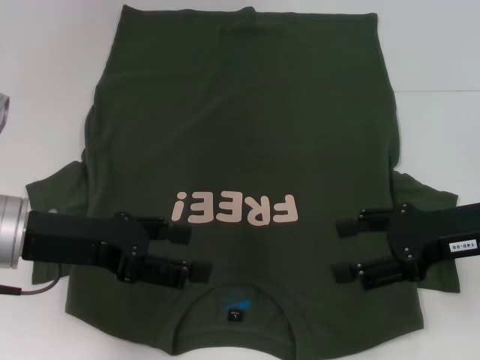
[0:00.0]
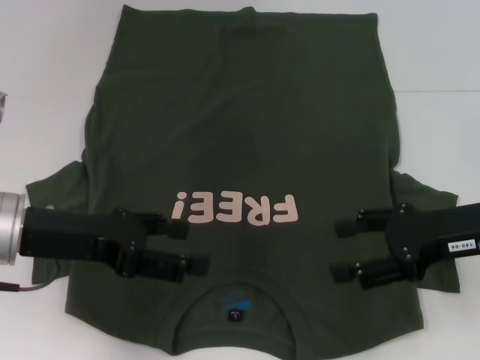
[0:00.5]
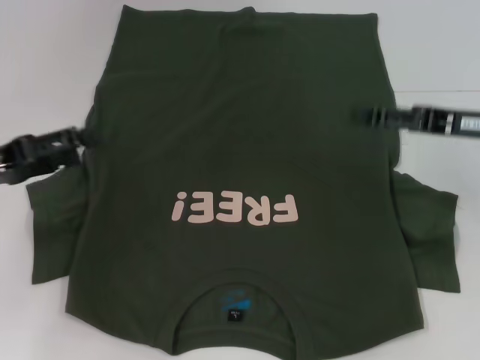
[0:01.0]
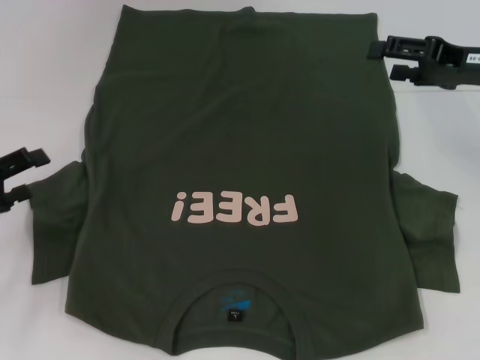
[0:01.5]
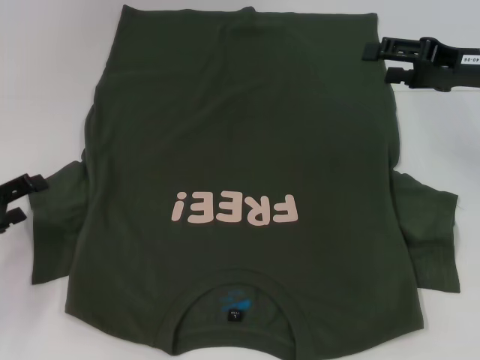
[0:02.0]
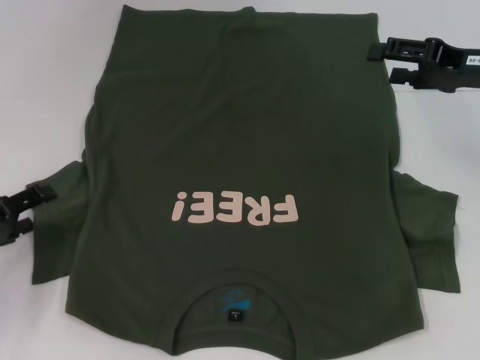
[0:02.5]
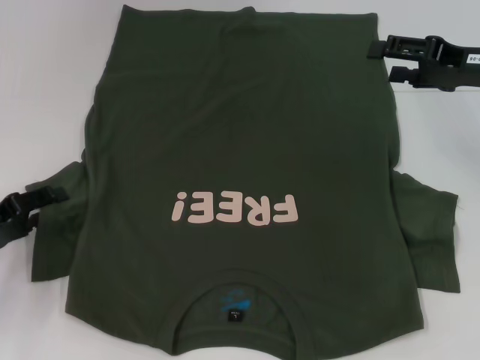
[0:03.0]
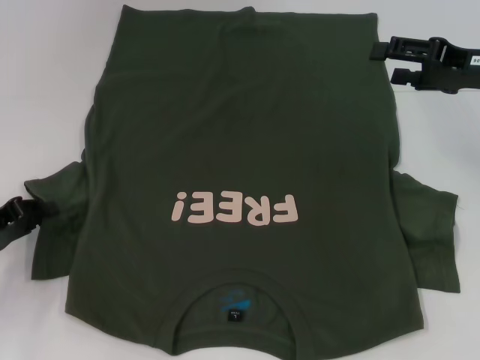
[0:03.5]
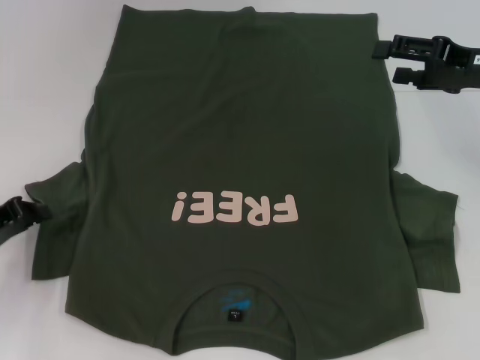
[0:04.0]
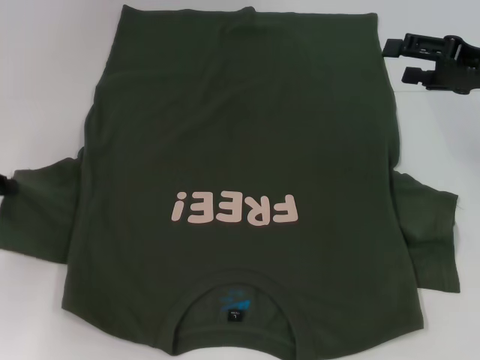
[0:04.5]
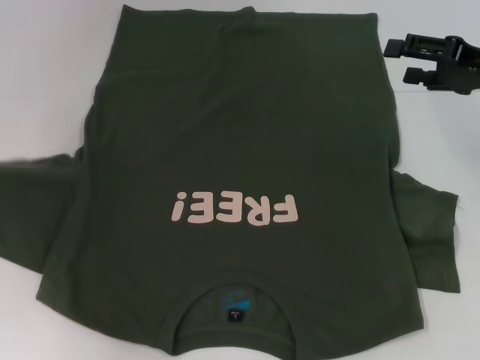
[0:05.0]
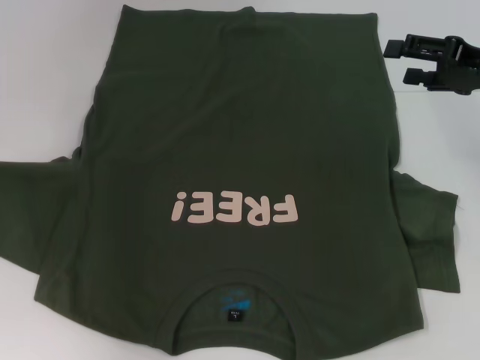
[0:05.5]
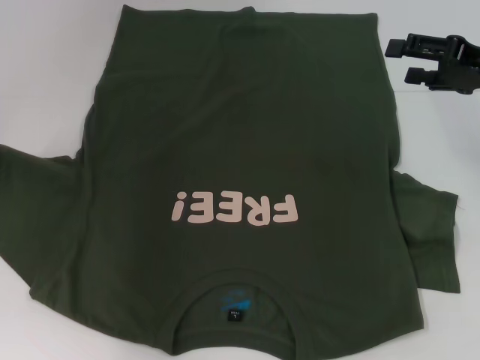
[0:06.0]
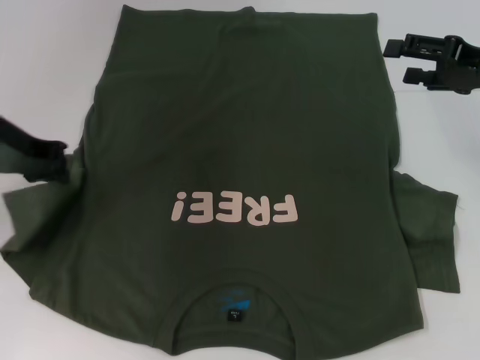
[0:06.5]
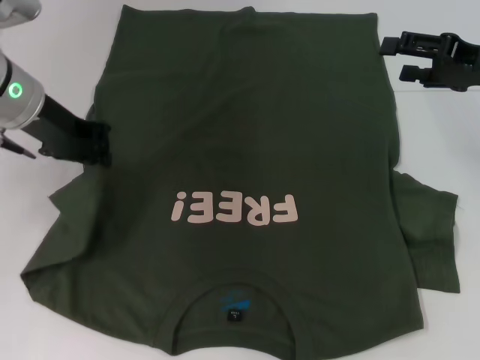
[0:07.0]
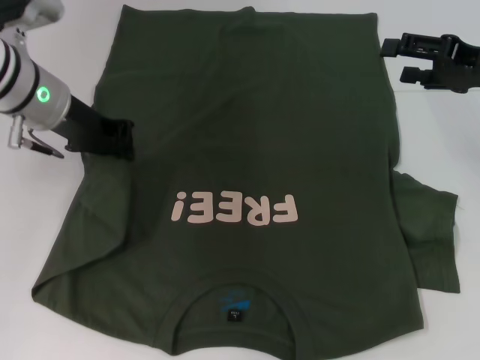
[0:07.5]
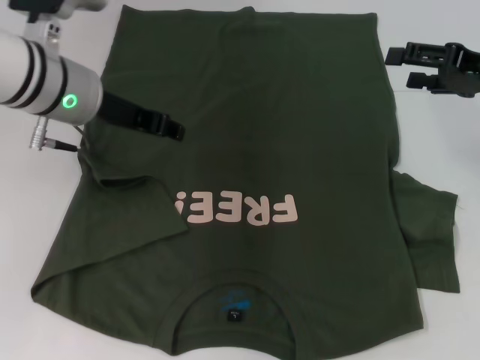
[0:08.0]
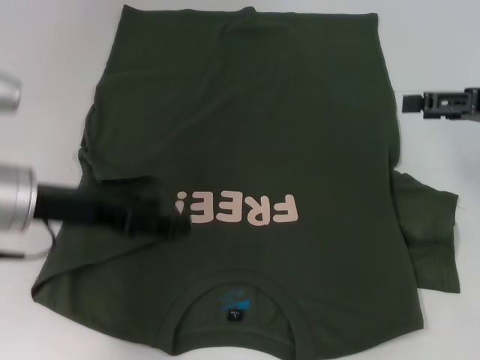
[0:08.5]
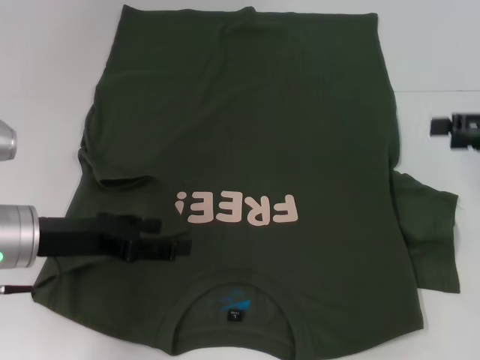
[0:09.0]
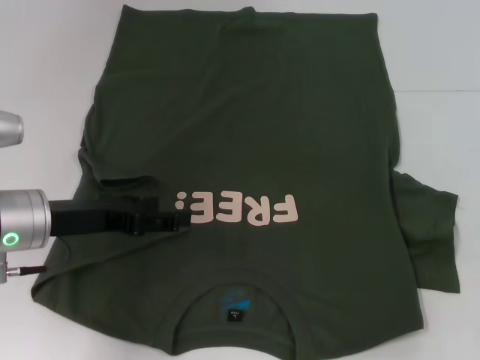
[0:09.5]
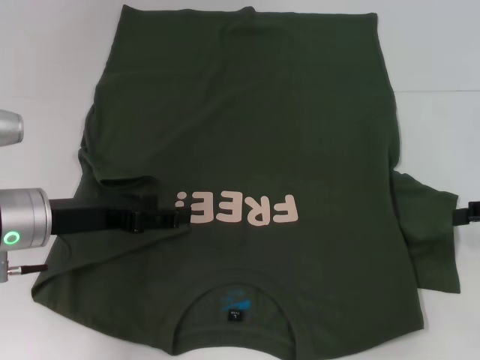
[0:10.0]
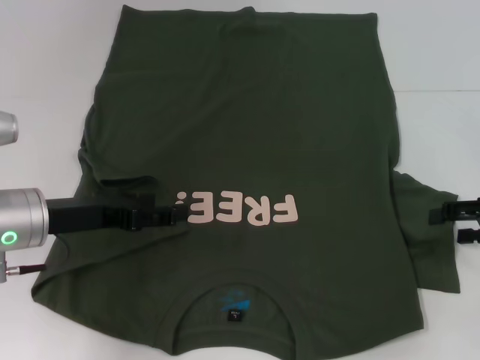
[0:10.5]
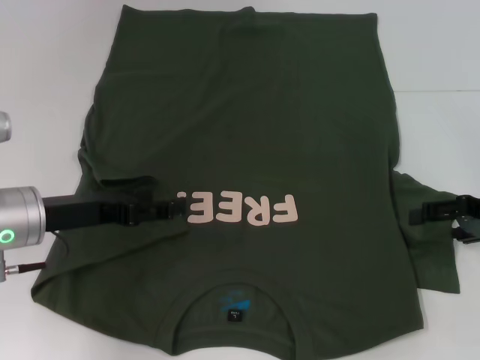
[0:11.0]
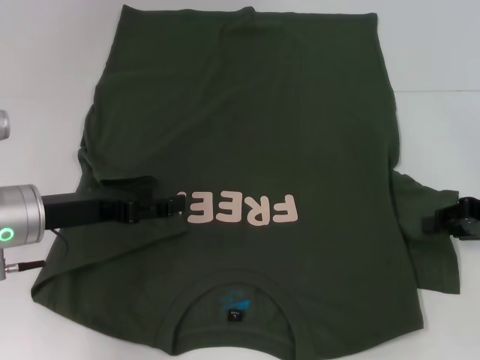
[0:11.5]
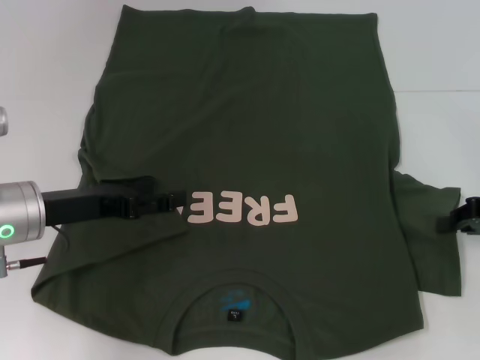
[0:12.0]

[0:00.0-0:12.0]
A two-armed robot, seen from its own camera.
Step, 0:00.0 to 0:08.0: Fold the bottom left sleeve with your left hand.
0:00.0 to 0:02.0: The left gripper is displaced to the left and downward by about 15 cm, while the right gripper goes some 10 cm forward.
0:02.0 to 0:04.0: The left gripper closes its fingers.
0:04.0 to 0:06.0: The left gripper is displaced upward and forward by some 15 cm.
0:06.0 to 0:08.0: The left gripper shifts approximately 15 cm to the right.
0:08.0 to 0:10.0: The right gripper heads backward, to the right and downward, covering about 10 cm, while the left gripper goes roughly 15 cm downward, backward and to the left, and opens its fingers.
0:10.0 to 0:12.0: The right gripper closes.

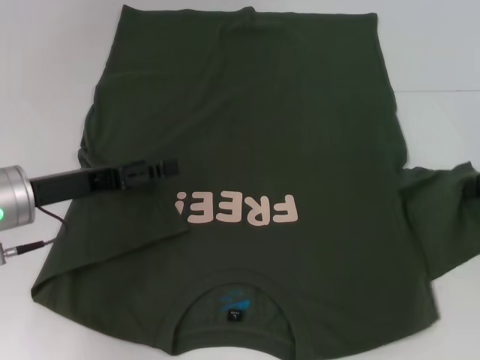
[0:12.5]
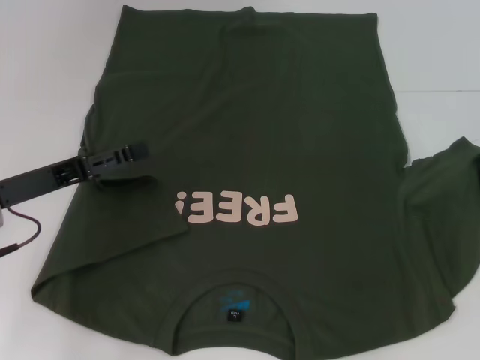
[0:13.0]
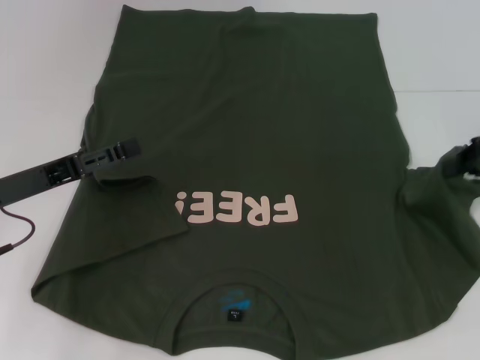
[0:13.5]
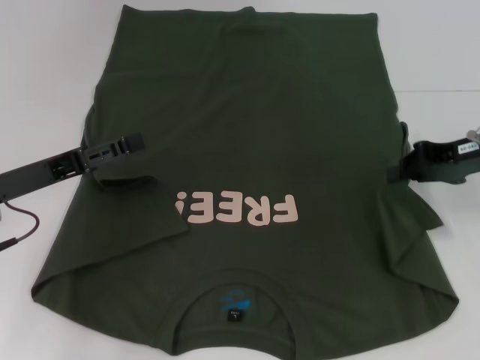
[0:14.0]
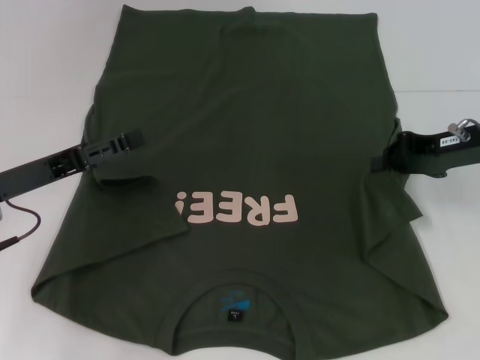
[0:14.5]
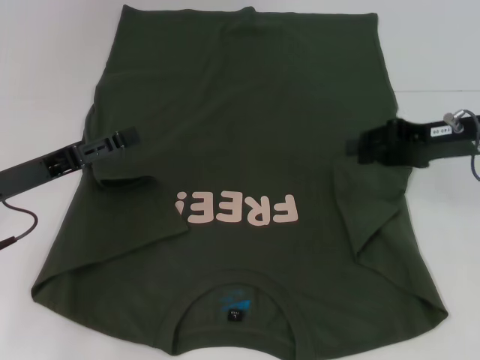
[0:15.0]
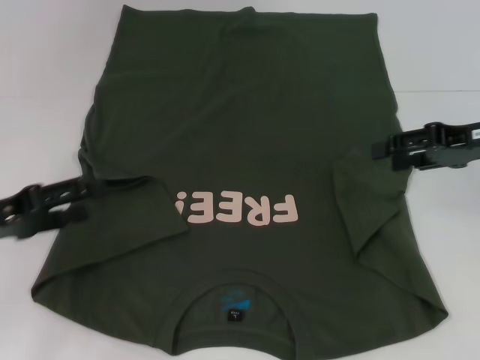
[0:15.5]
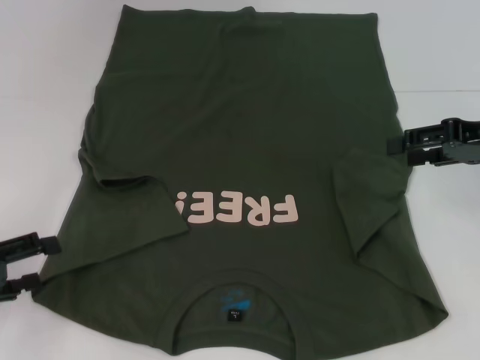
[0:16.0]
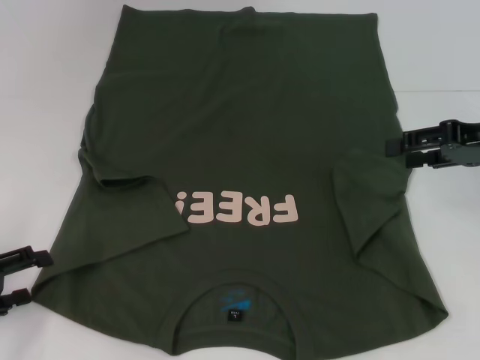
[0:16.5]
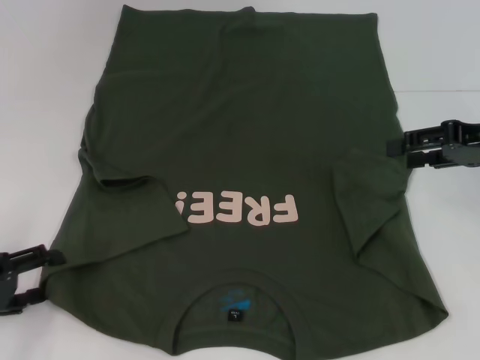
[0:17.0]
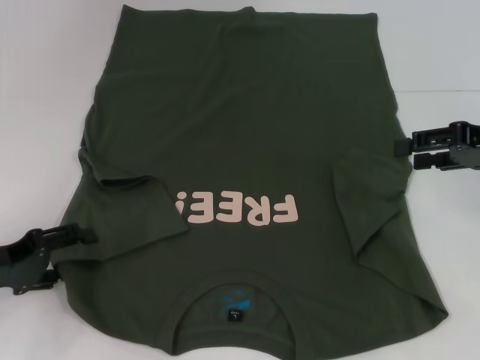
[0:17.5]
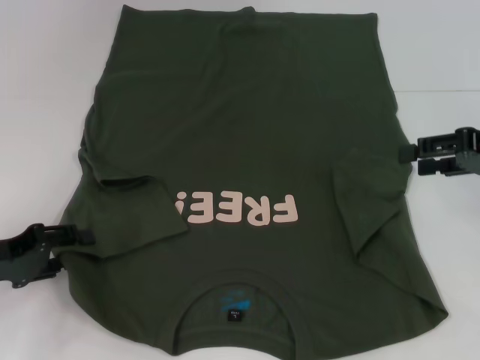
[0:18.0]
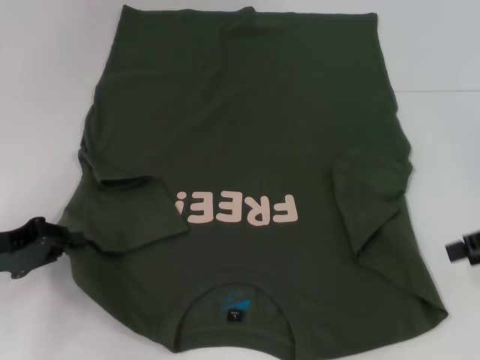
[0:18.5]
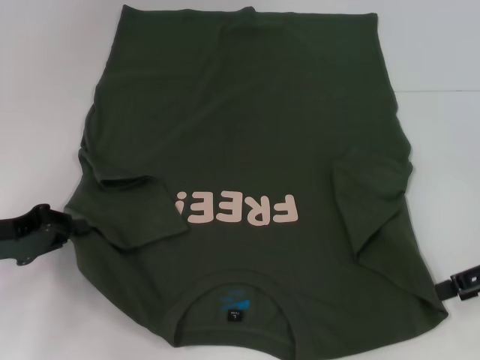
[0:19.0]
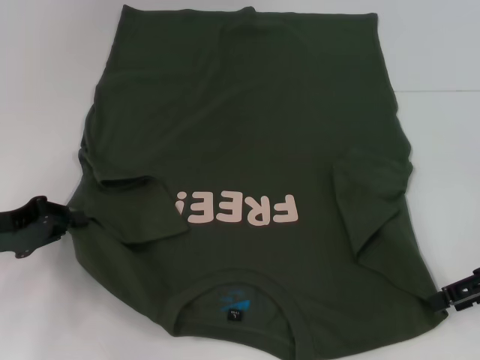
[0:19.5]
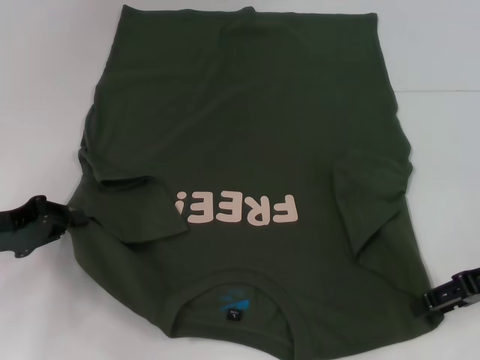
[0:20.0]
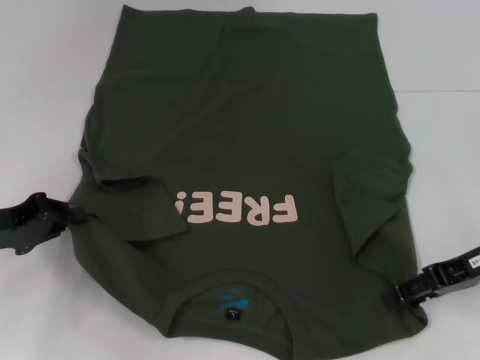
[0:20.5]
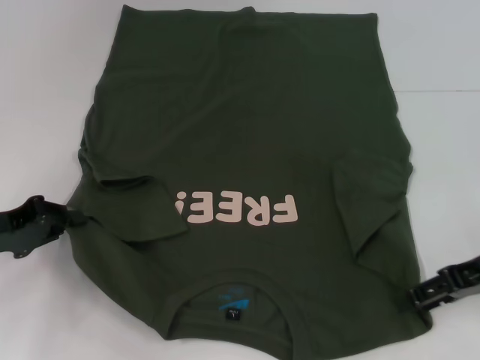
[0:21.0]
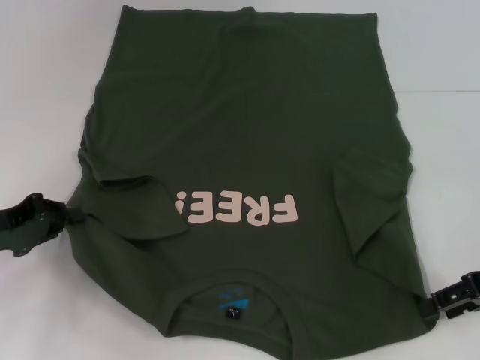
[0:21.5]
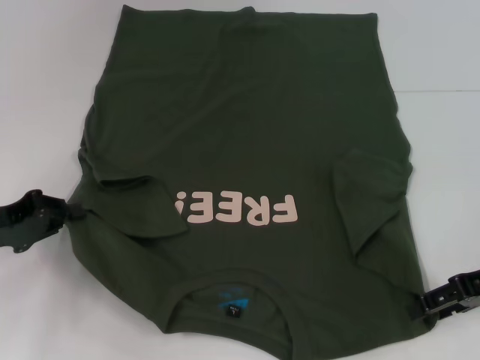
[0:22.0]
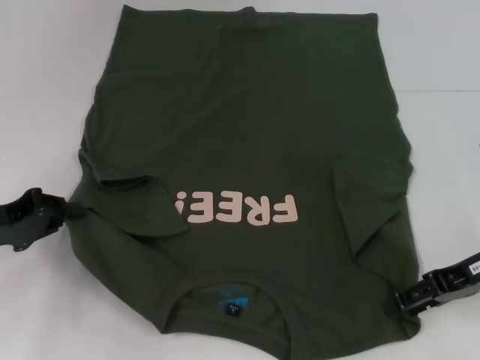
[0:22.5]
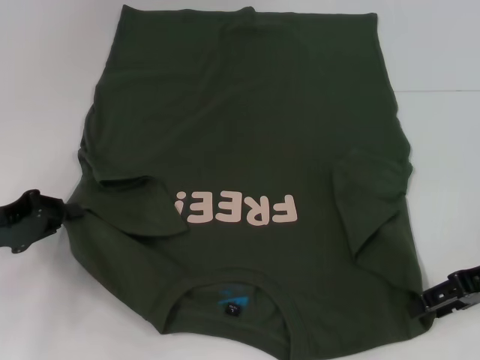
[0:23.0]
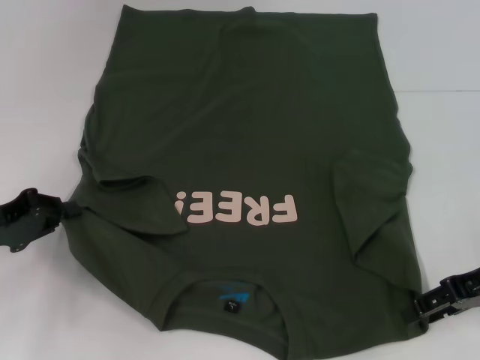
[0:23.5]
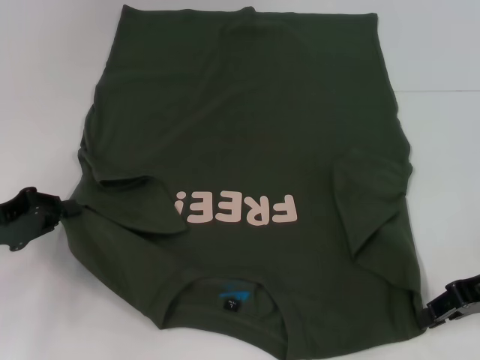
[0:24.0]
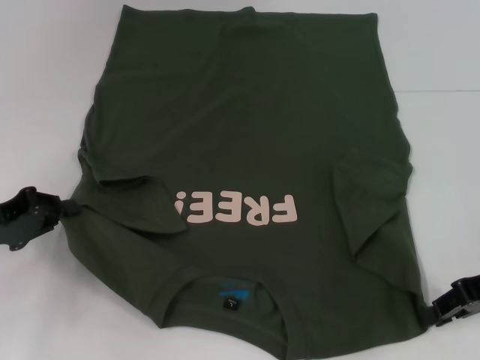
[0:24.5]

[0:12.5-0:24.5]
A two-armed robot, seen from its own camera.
Step, 0:12.5 to 0:15.0: Fold the bottom right sleeve with your right hand.
Step, 0:15.5 to 0:18.0: Grab the bottom left corner with your left hand.
0:12.5 to 0:14.5: The right gripper heads to the left, covering roughly 10 cm.
0:14.5 to 0:16.5: The left gripper heads to the left and backward, covering approximately 10 cm; the right gripper moves about 5 cm, and opens up.
0:16.5 to 0:18.5: The left gripper shifts some 5 cm forward, and closes, while the right gripper moves some 5 cm.
0:18.5 to 0:20.5: The right gripper moves to the left, roughly 5 cm.
0:20.5 to 0:22.5: There are only small adjustments of the grippers.
0:22.5 to 0:24.5: The right gripper closes.

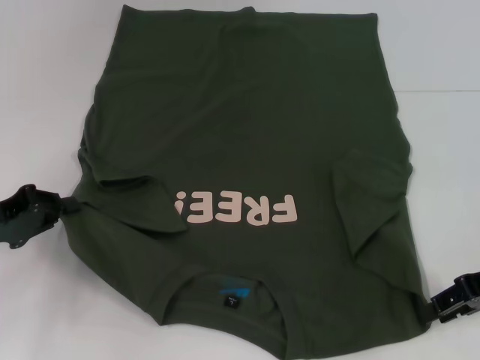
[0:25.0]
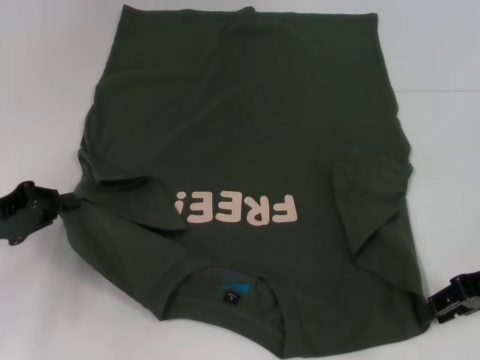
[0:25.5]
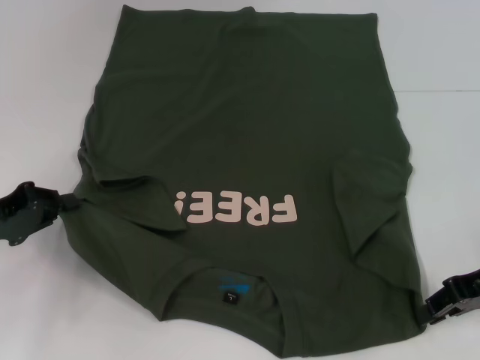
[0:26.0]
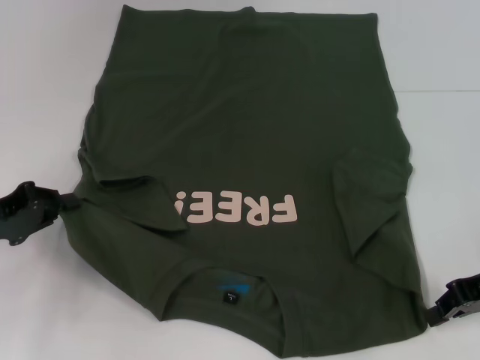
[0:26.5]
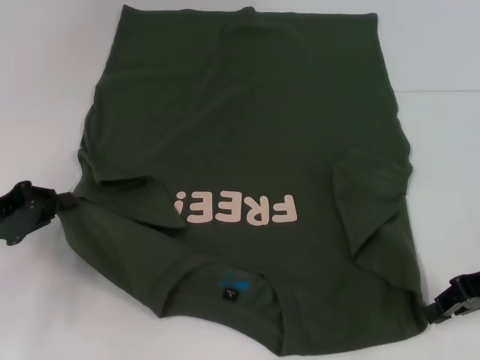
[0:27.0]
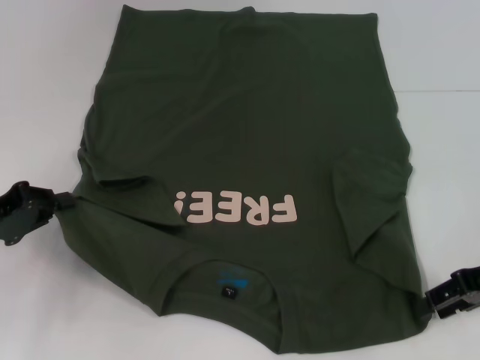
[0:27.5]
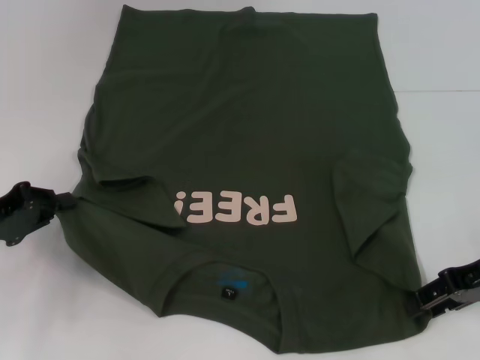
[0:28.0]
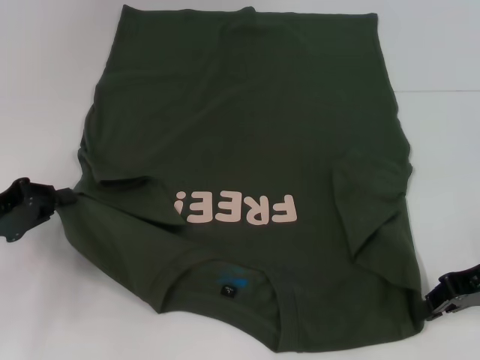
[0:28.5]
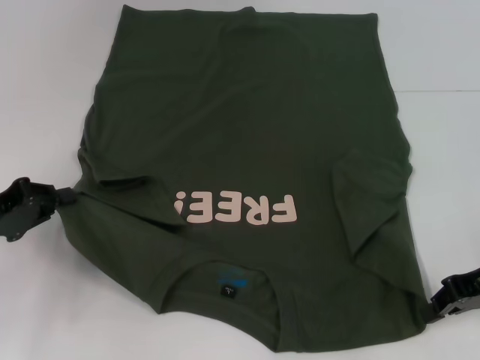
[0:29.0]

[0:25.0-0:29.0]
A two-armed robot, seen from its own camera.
Step, 0:25.0 to 0:28.5: Grab the bottom right corner with your right hand.
0:25.0 to 0:27.0: Neither gripper changes place.
0:27.0 to 0:29.0: The right gripper opens, then closes once more.
